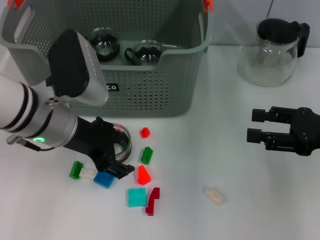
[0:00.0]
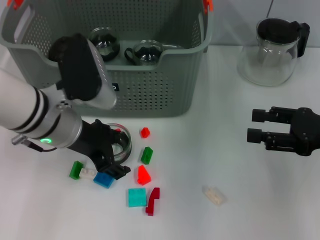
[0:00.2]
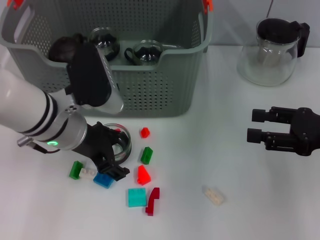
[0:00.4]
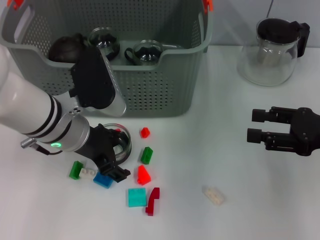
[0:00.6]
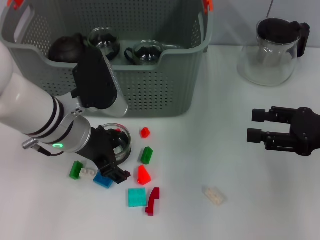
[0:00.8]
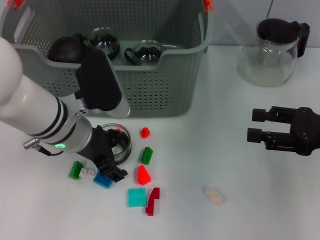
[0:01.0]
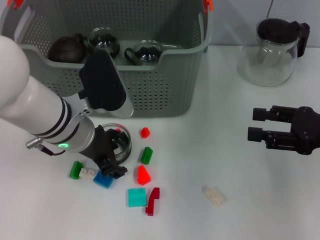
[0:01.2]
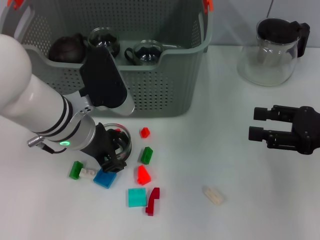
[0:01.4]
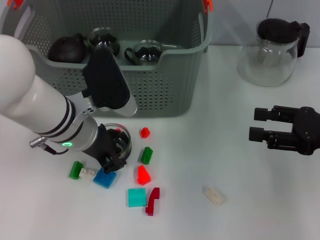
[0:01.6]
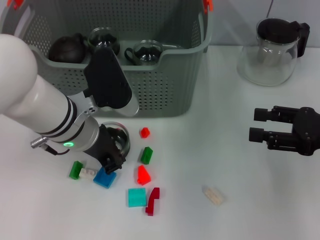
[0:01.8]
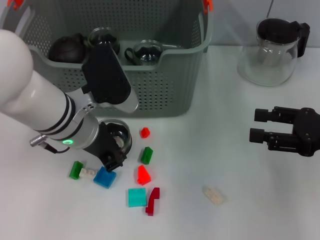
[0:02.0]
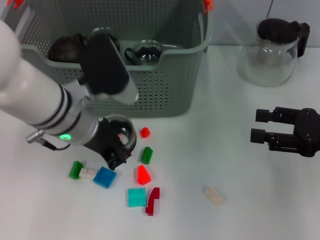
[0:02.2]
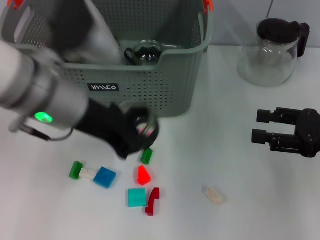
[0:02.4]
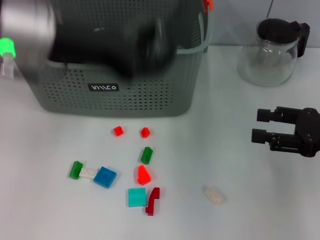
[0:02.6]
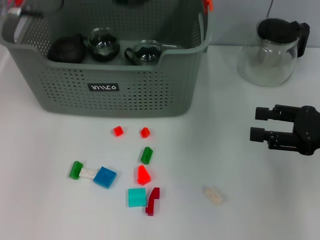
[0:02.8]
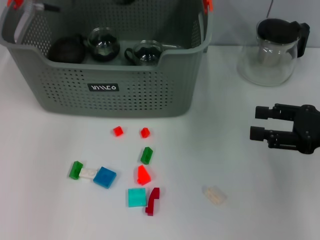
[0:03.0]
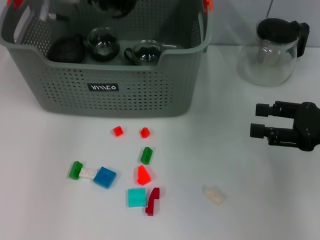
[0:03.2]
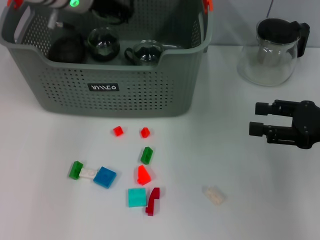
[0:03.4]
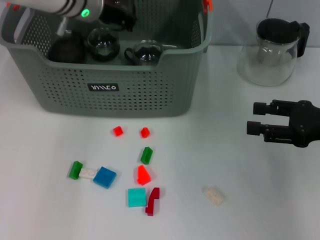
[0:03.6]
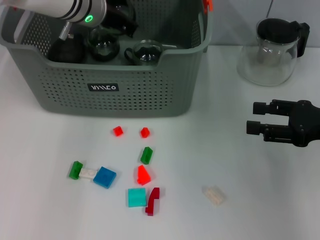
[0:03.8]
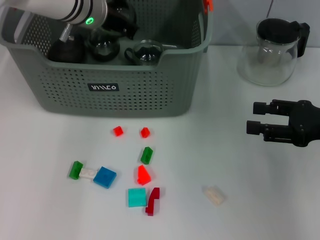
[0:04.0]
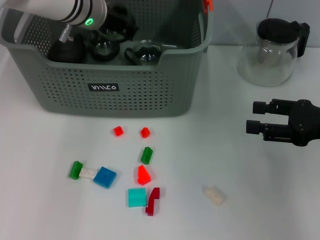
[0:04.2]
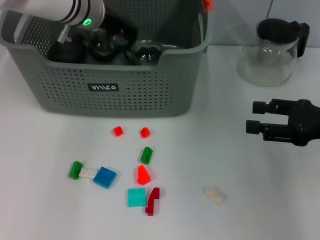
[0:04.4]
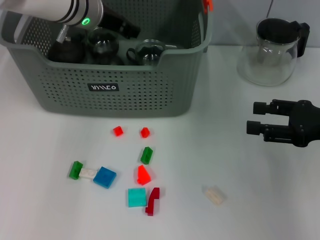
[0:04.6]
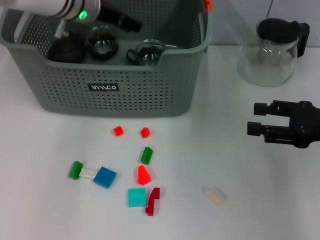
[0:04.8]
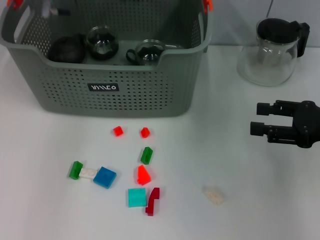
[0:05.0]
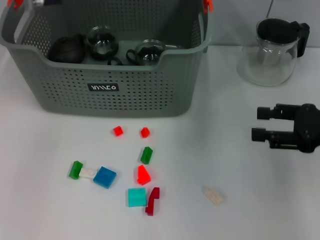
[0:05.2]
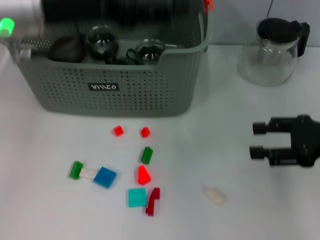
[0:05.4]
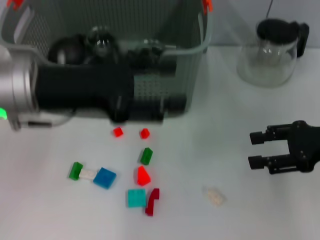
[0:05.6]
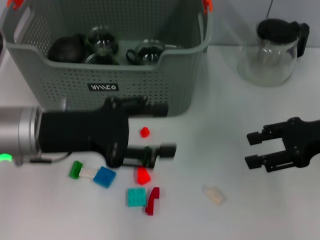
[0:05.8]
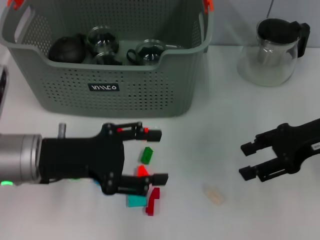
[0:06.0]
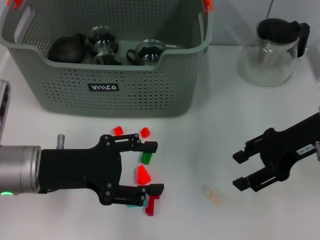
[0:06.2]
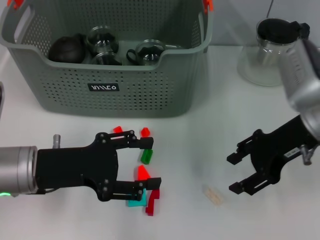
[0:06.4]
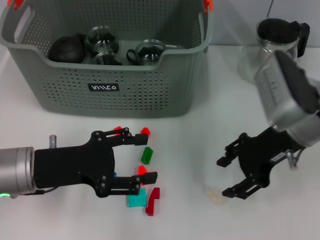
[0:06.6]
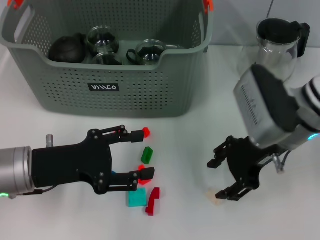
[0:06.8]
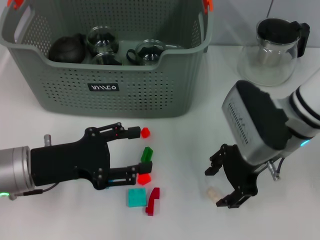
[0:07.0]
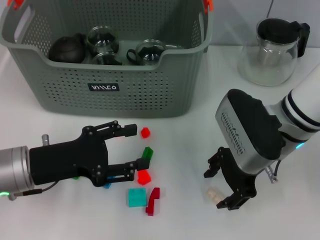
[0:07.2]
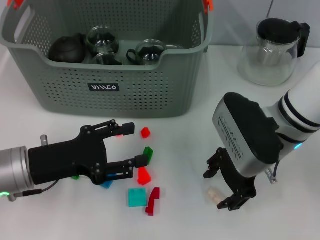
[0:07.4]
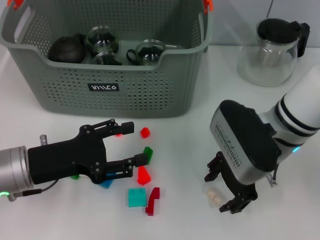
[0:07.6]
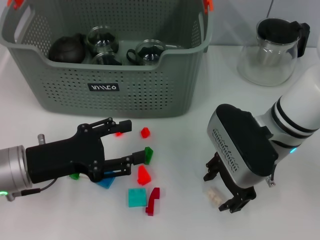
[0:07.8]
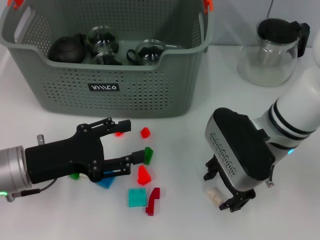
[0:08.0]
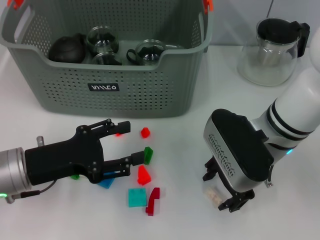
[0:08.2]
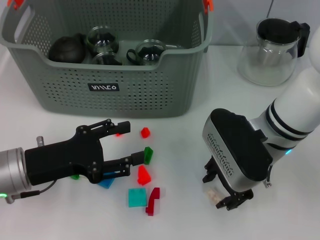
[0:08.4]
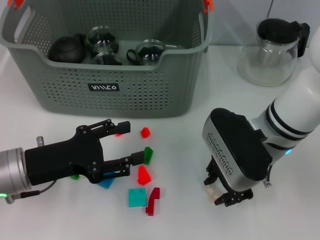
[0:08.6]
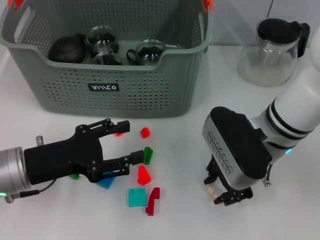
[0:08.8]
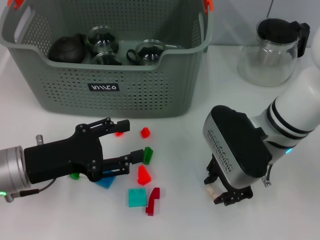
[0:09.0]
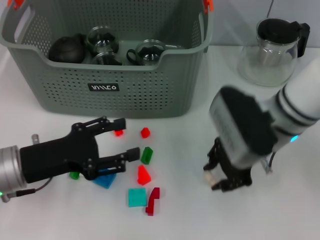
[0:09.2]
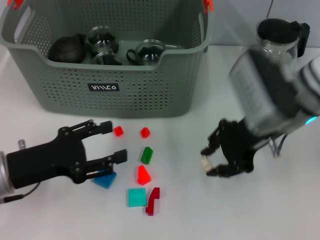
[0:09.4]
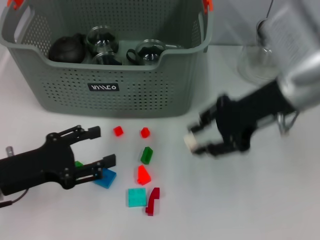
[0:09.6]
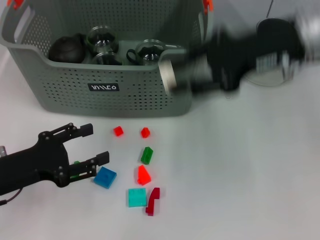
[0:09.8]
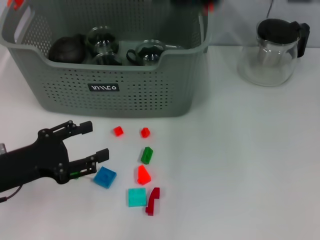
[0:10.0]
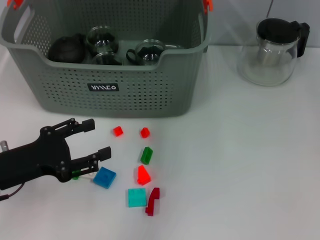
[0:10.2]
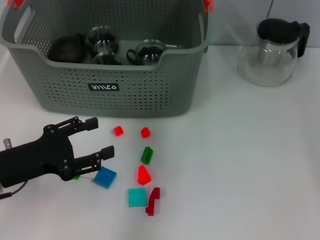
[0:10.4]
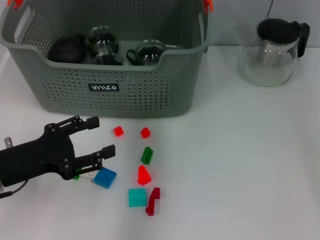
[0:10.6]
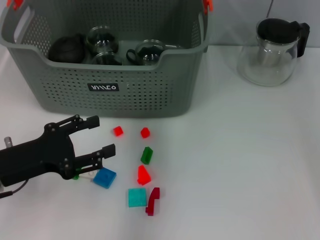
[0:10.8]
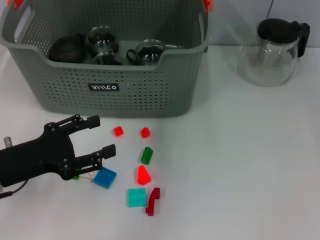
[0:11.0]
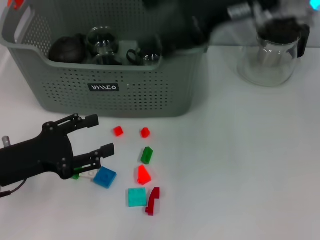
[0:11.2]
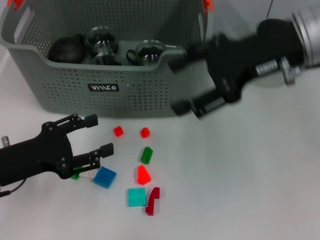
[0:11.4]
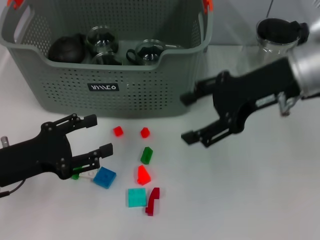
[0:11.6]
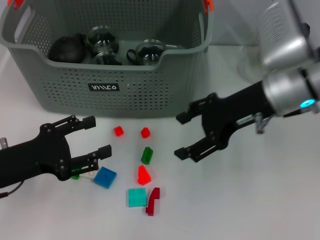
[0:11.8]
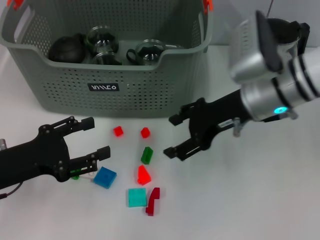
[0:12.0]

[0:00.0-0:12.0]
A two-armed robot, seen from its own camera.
Task of the whole recording: pick up the teacup on the table and place it into the storage bin, pick up the block on the table and place it into the storage bin.
Step, 0:02.0 to 0:04.6: Place the cup in the storage box with left gripper.
Step, 0:04.8 to 0:08.8: Grasp the white block with right gripper.
Step, 0:09.0 to 0:10.8: Place the white block in the storage box with right gripper.
0:00.0 to 0:01.6: The left gripper closes its fingers.
0:01.6 to 0:03.0: The left gripper travels upward and forward by some 20 cm, and closes its fingers.
0:03.0 to 0:04.4: The left gripper is displaced downward by some 10 cm.
0:04.4 to 0:06.0: The right gripper shifts by roughly 5 cm. The left gripper heads backward, covering roughly 20 cm, and opens its fingers.
0:06.0 to 0:07.6: The right gripper heads to the left, covering some 15 cm.
0:07.6 to 0:09.0: Both grippers stay about where they are.
0:09.0 to 0:10.4: The right gripper heads upward and forward, covering some 20 cm.
0:10.4 to 0:12.0: The right gripper is displaced downward and backward by roughly 15 cm, and opens.

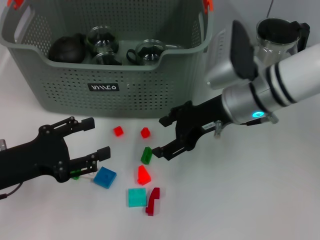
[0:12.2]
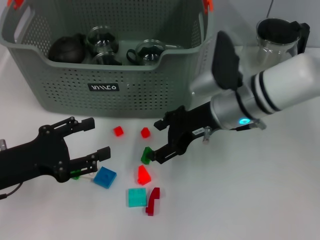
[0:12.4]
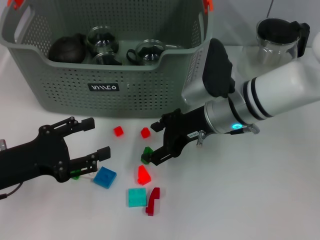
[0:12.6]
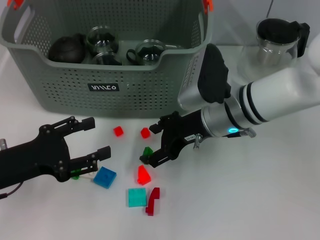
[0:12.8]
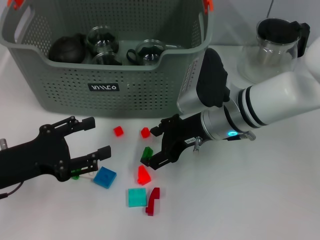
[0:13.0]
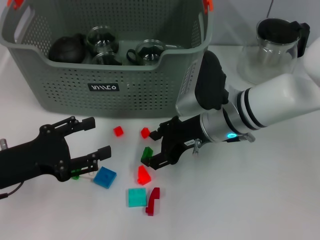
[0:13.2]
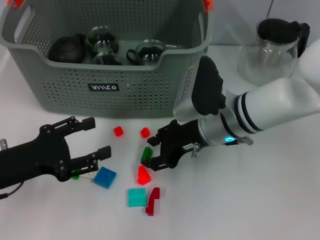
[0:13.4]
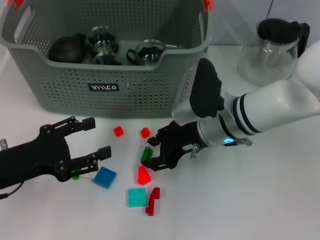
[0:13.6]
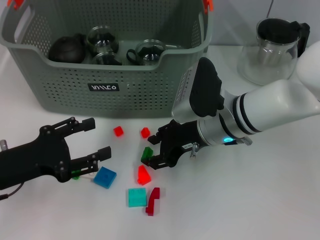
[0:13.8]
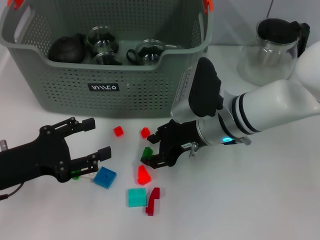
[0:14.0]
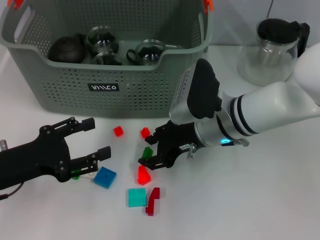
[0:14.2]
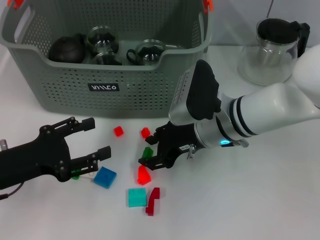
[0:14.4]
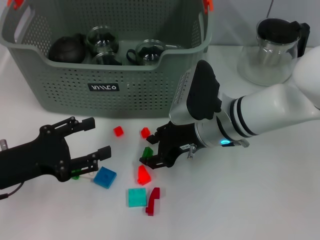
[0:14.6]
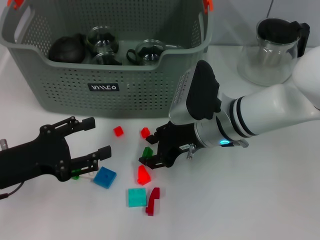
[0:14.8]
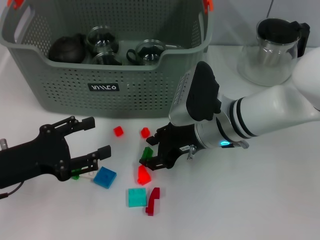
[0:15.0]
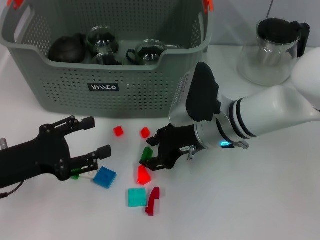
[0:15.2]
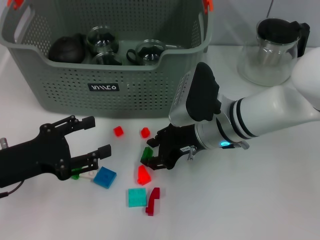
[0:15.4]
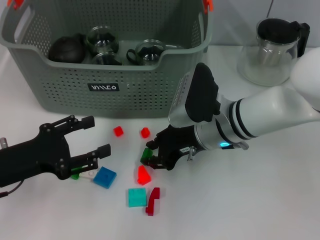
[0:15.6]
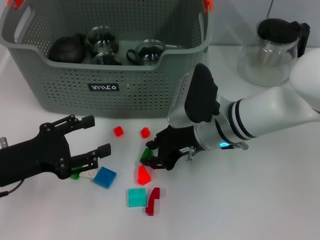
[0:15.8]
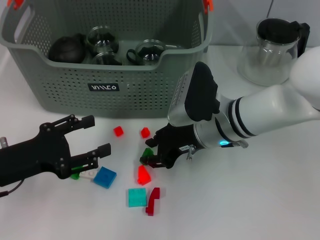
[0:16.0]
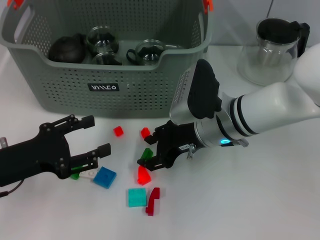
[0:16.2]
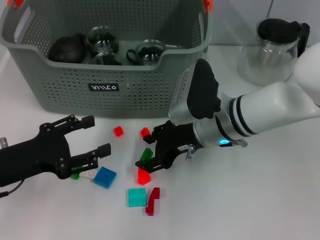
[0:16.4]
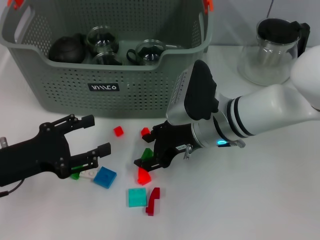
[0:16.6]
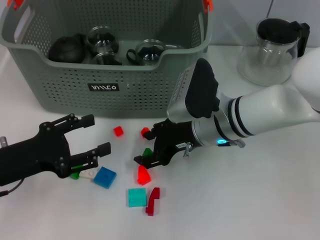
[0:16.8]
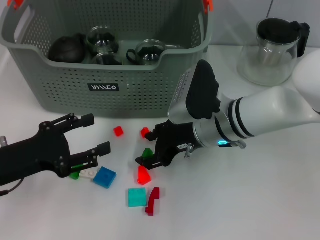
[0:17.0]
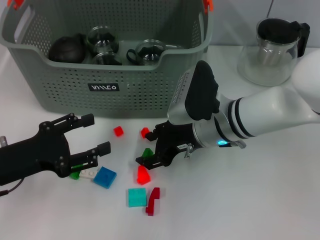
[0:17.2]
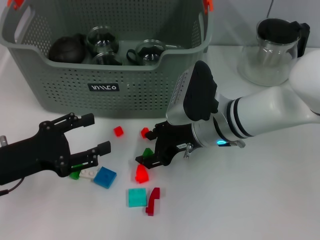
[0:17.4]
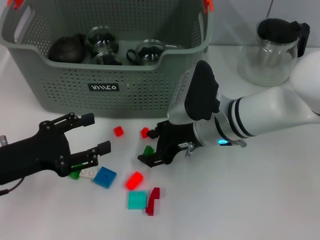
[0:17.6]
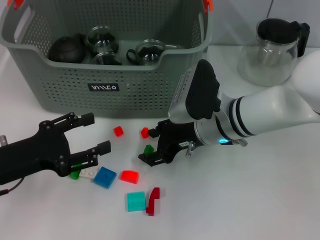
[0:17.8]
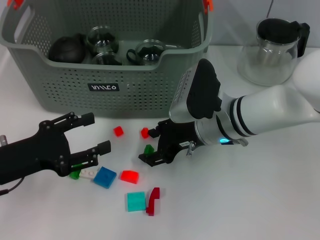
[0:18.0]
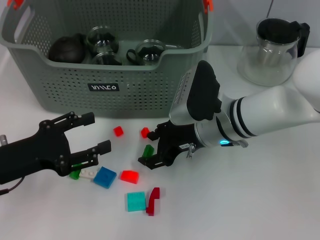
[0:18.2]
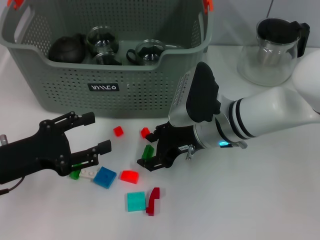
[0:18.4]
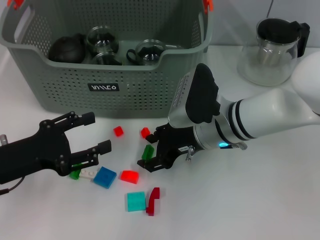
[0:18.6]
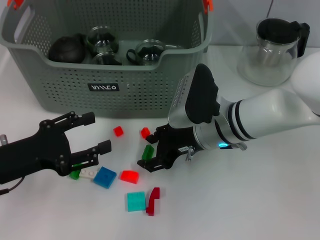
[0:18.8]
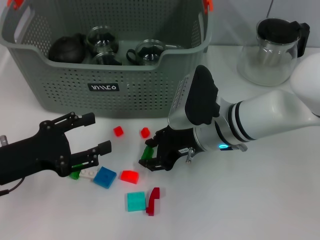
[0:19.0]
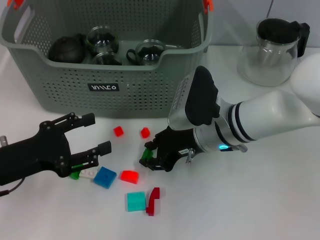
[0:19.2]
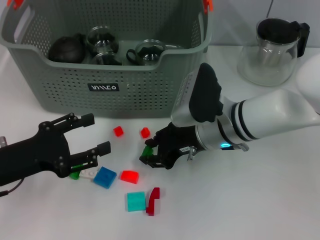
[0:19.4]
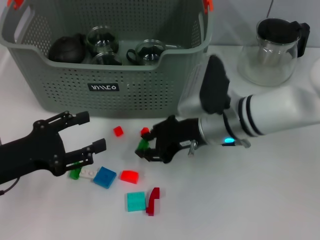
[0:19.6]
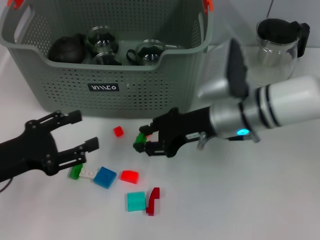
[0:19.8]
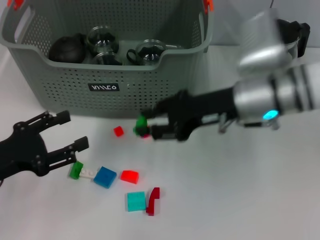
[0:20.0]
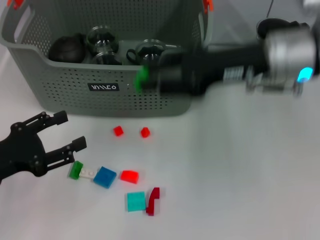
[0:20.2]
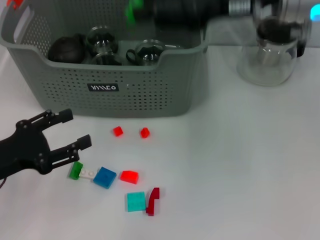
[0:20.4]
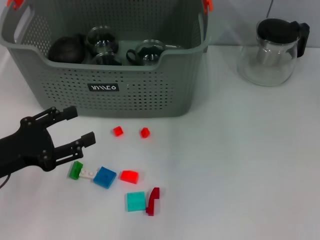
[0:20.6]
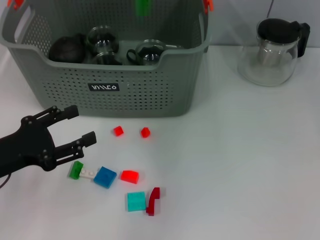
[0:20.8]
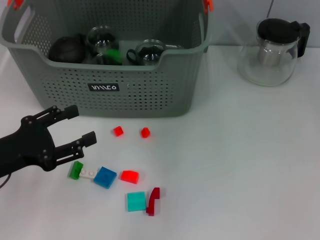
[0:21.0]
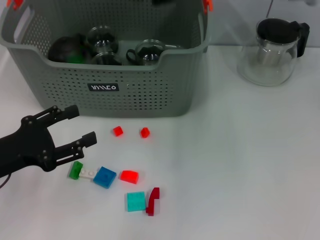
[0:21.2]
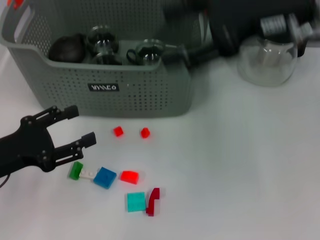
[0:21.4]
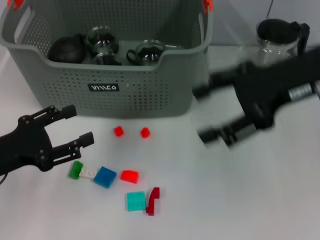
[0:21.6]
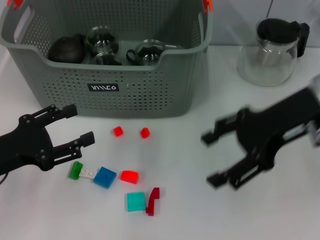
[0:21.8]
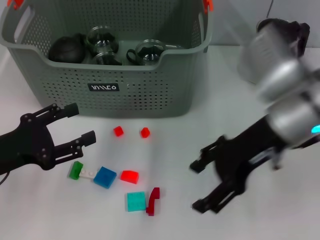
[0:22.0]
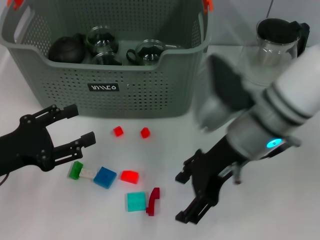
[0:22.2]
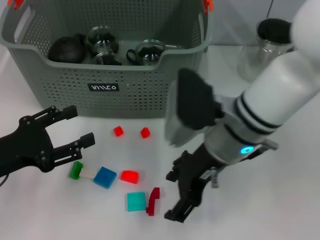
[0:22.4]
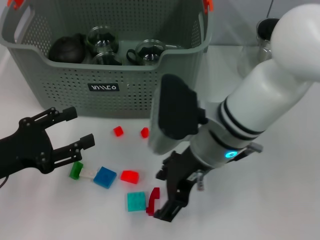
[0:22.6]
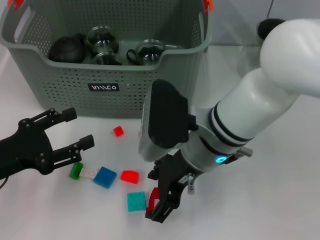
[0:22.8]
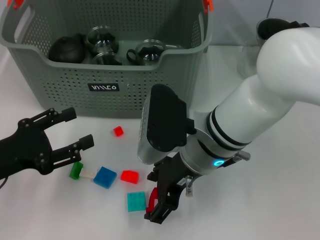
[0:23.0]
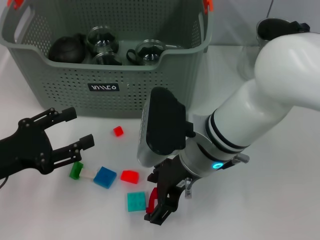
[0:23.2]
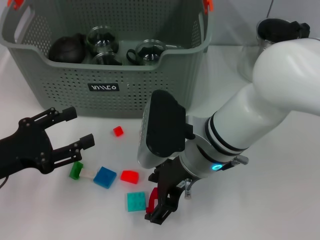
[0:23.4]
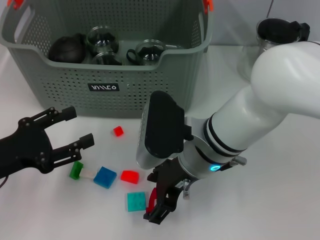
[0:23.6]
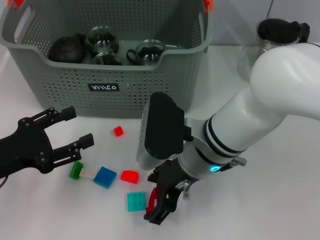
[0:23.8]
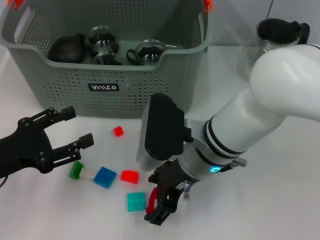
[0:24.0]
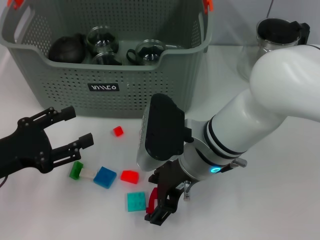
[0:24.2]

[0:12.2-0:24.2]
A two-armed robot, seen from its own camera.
Task of the whole recording: pick up the teacup on the table and place it into the storage bin, pick up the block on the table and place it into the storage bin.
Step, 0:12.2 to 0:19.0: Grasp the green block with right gripper.
Step, 0:19.4 to 0:21.0: Place the green block in the storage box with right gripper.
0:12.2 to 0:13.8: The right gripper moves approximately 5 cm.
0:13.8 to 0:18.2: Both grippers stay put.
0:18.2 to 0:19.8: The grippers stay close to where they were, moving slightly.
0:19.8 to 0:21.2: The right gripper goes some 20 cm upward, and opens.
0:21.2 to 0:22.6: The right gripper heads downward, to the left and backward, covering approximately 20 cm.
0:22.6 to 0:24.2: The grippers make only small movements.
